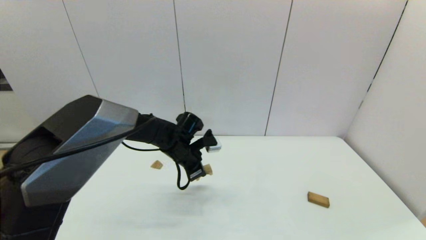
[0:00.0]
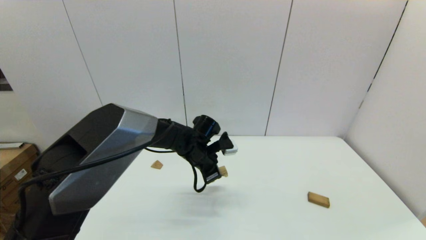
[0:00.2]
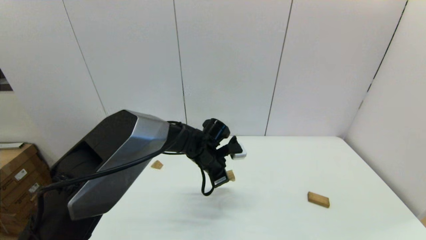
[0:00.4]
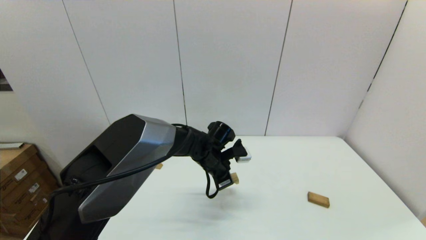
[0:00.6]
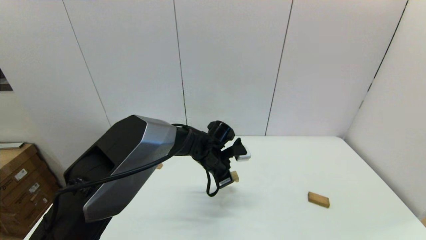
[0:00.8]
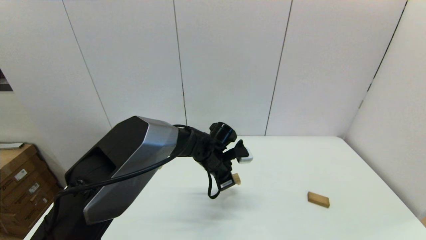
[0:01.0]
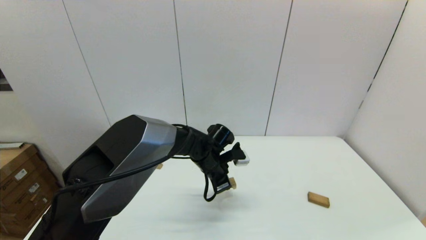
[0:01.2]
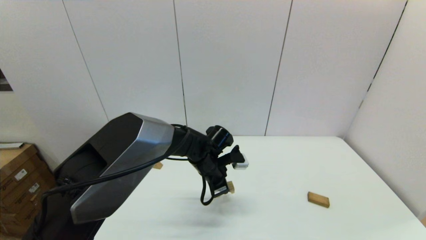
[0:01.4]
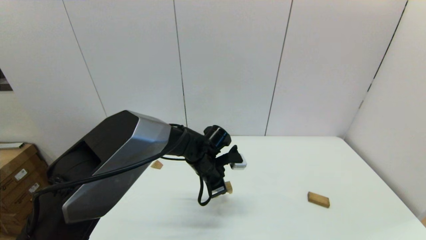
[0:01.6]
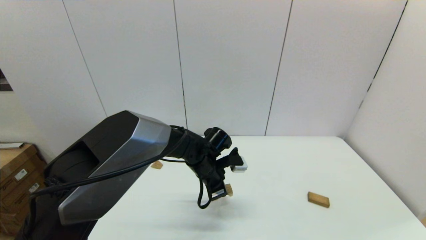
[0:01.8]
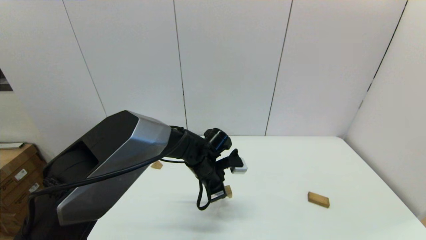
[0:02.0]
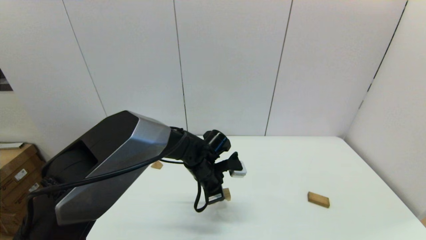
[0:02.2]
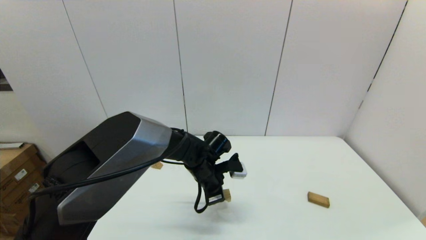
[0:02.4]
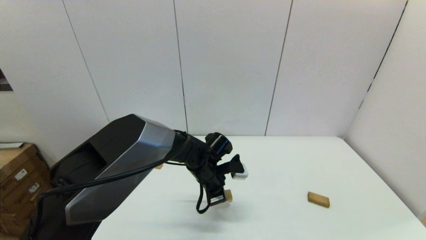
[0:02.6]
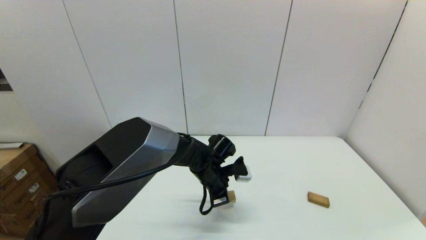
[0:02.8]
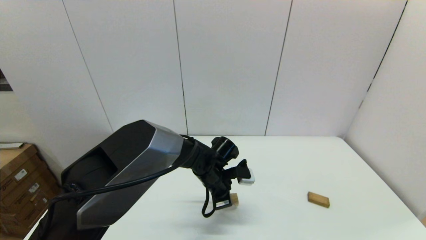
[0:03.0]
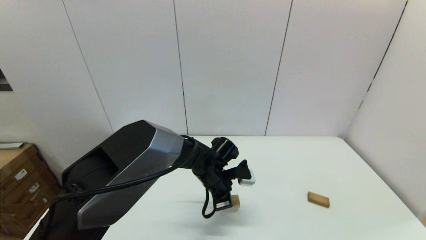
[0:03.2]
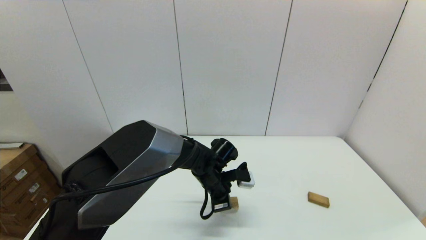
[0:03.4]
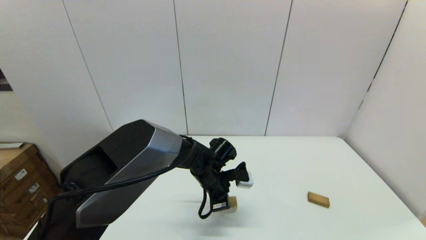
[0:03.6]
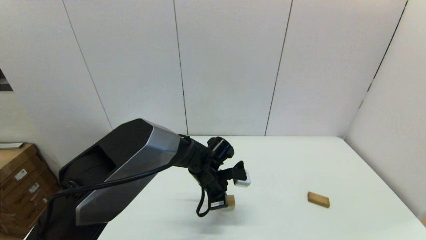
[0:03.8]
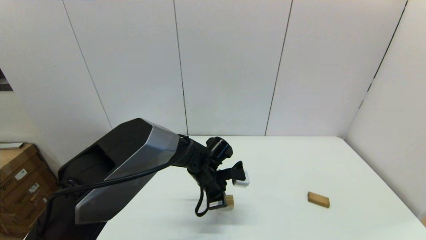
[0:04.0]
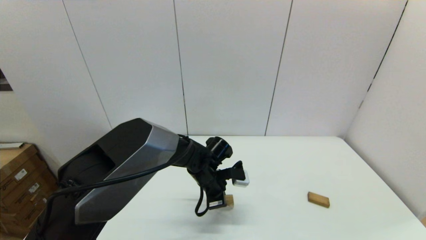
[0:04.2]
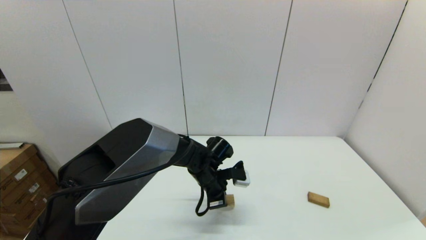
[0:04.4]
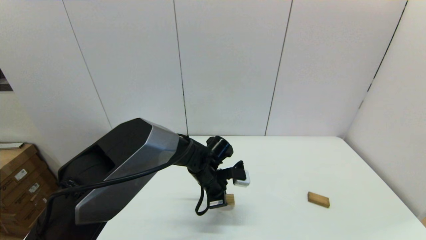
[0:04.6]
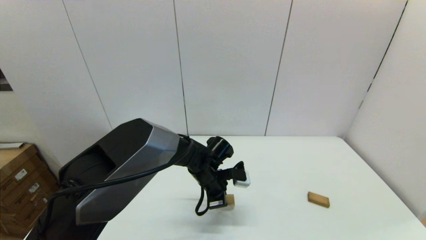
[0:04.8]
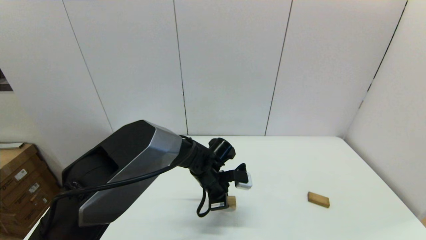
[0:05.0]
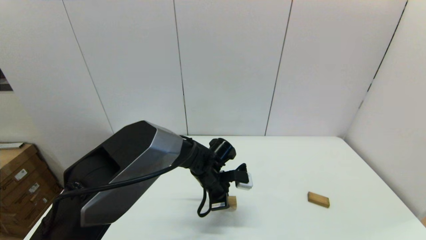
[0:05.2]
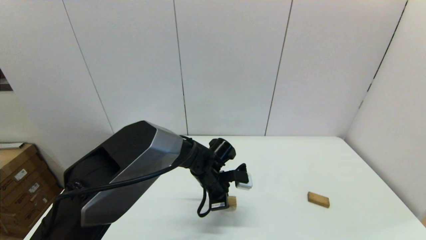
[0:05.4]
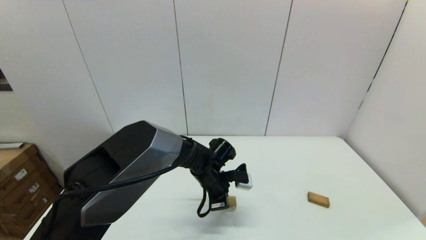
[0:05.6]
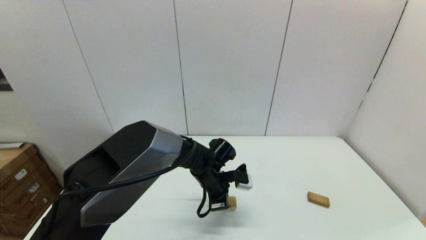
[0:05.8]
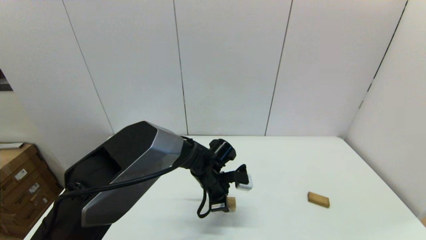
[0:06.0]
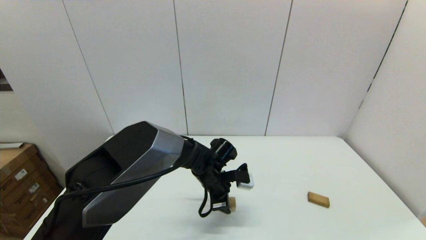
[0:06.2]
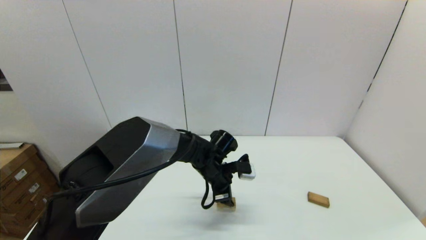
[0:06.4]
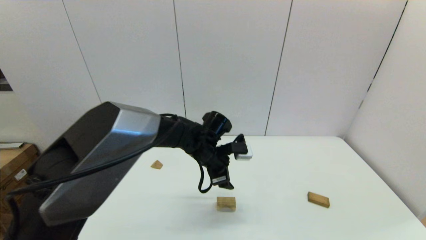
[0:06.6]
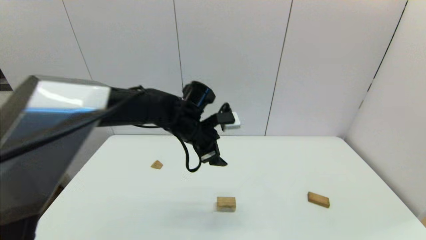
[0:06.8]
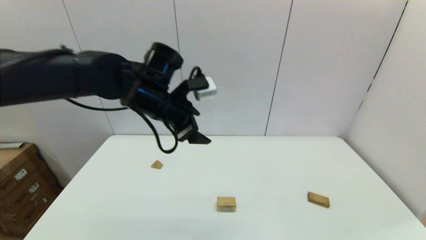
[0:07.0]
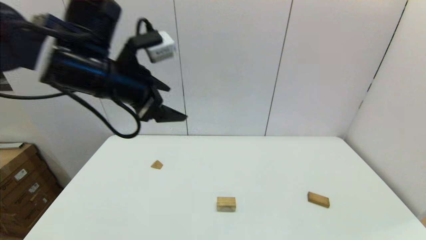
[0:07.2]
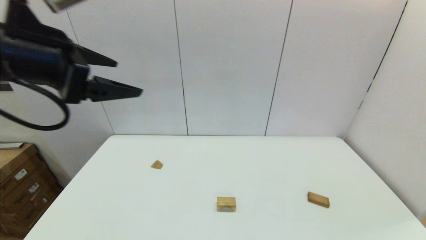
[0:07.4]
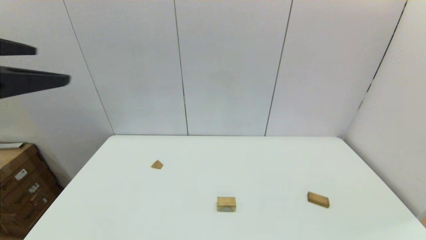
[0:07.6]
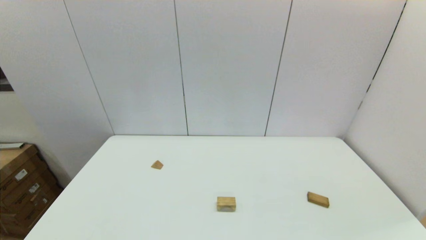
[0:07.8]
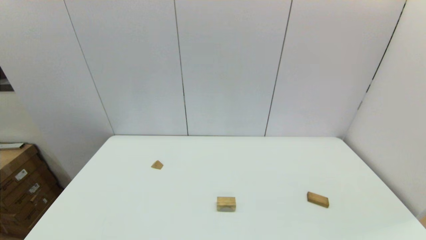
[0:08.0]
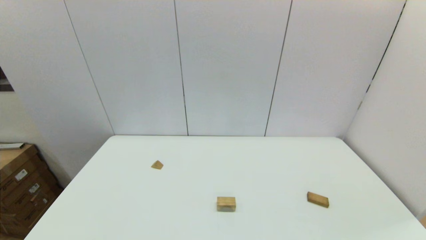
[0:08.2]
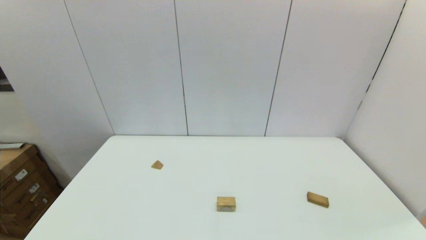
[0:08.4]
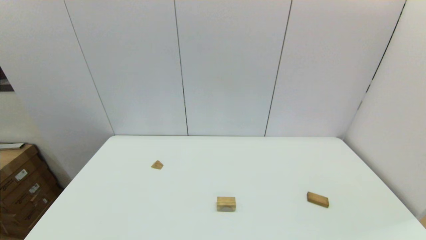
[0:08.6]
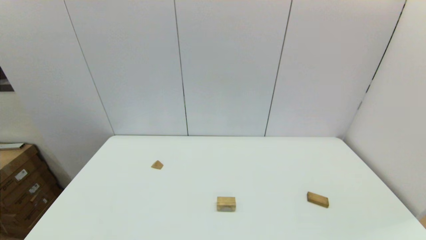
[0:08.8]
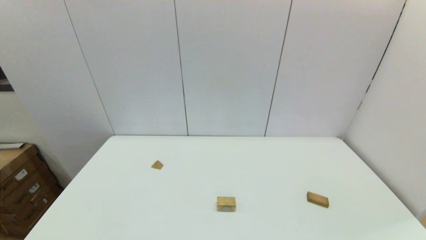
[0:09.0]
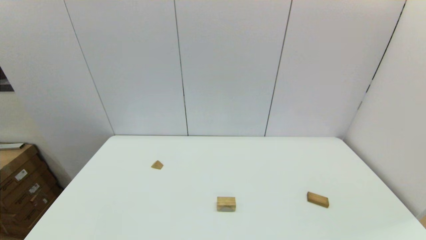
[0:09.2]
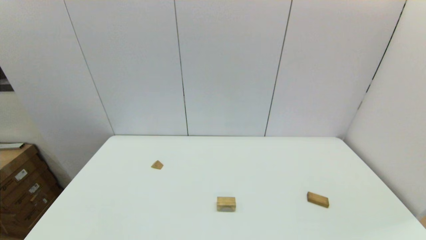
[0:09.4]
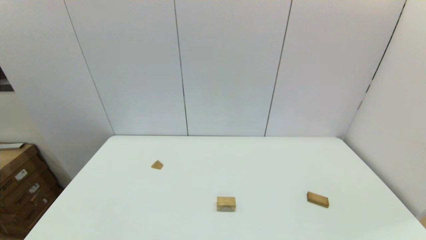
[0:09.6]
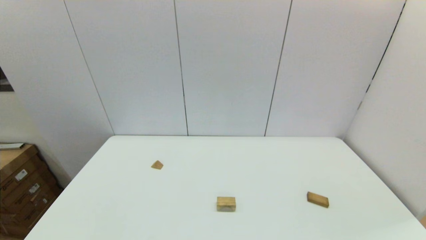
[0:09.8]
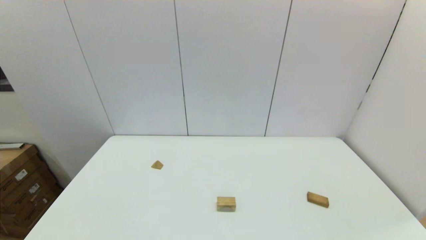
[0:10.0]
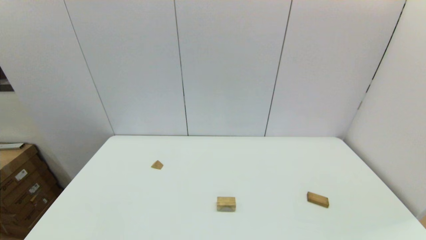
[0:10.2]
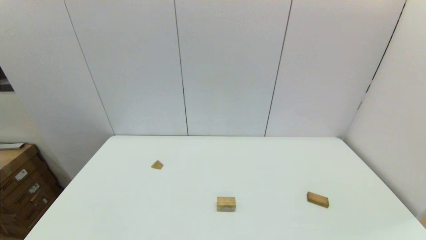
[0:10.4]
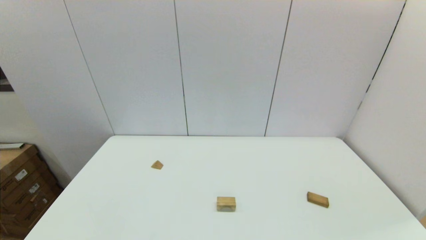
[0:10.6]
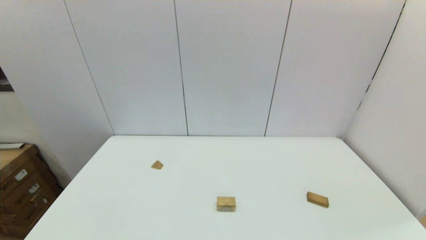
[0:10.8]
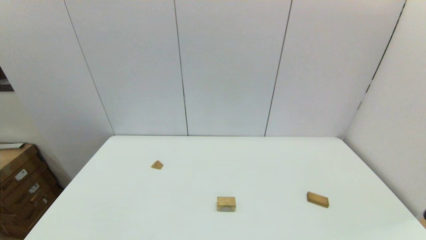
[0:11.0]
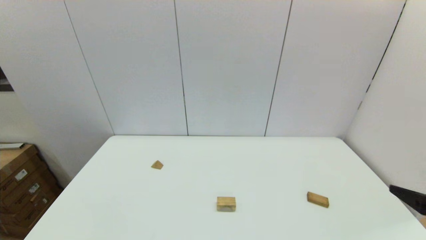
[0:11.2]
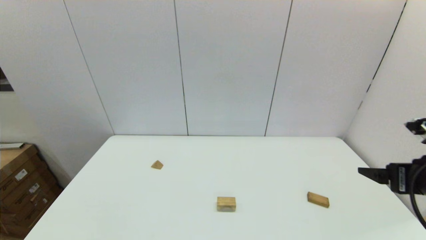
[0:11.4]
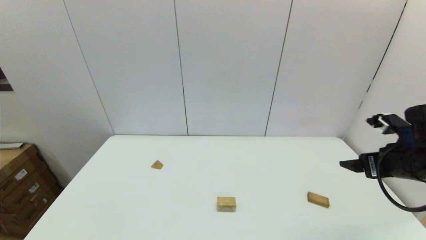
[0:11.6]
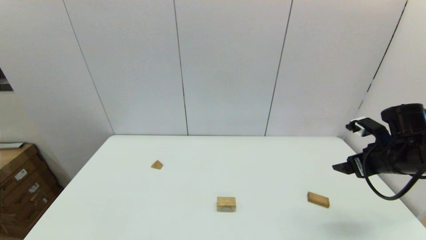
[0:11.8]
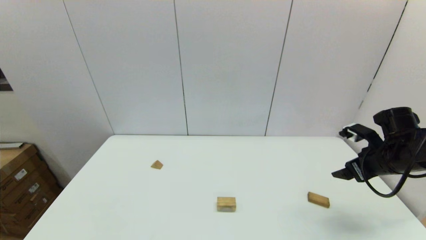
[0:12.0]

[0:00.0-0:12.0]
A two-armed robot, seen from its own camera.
Task of the whole recording: place the arched building blocks in the center of the table, set up the rectangular building blocks, and then set up the triangular building blocks.
Step, 0:00.0 to 0:06.0: Place the arch-shaped block in the center of view with the left gripper.
0:00.0 to 0:01.6: The left gripper heads to the right, covering roughly 5 cm.
0:01.6 to 0:04.4: The grippers make only small movements.
0:04.4 to 0:06.0: The left gripper opens its fingers.
0:06.0 to 0:07.6: The left gripper moves upward, to the left and backward, some 50 cm, and opens its fingers.
0:07.6 to 0:09.0: The left gripper goes approximately 30 cm downward and backward.
0:10.4 to 0:12.0: The right gripper shifts roughly 30 cm forward.

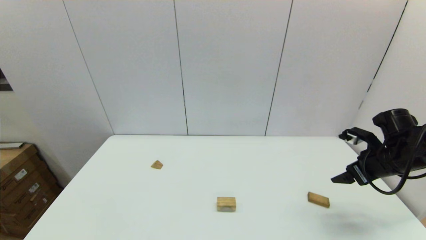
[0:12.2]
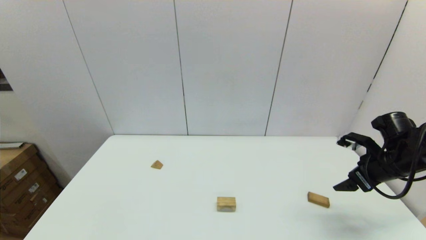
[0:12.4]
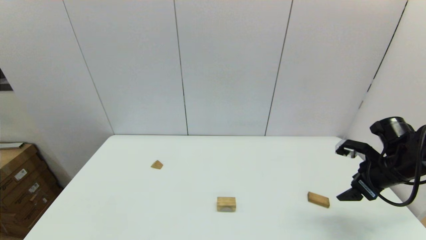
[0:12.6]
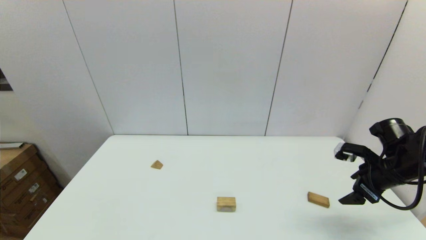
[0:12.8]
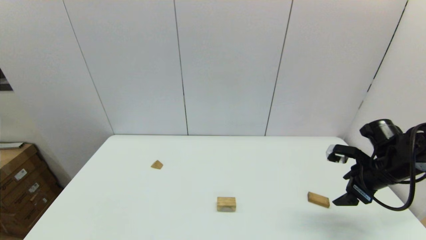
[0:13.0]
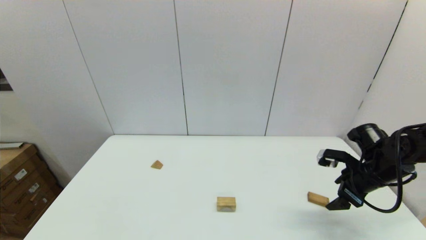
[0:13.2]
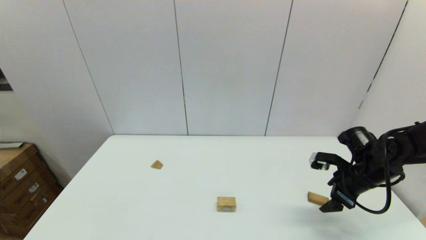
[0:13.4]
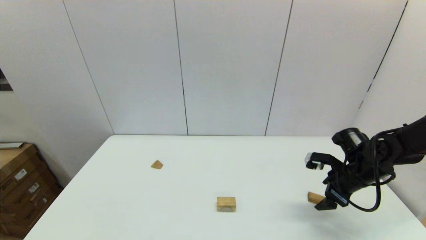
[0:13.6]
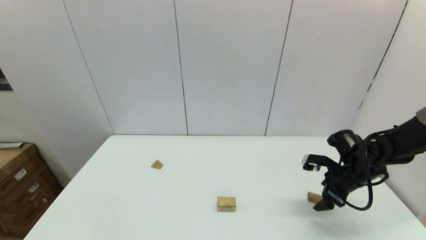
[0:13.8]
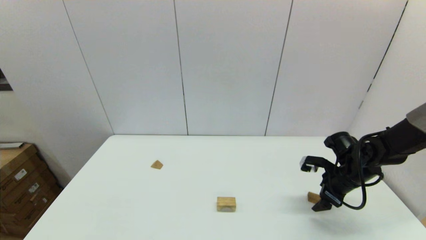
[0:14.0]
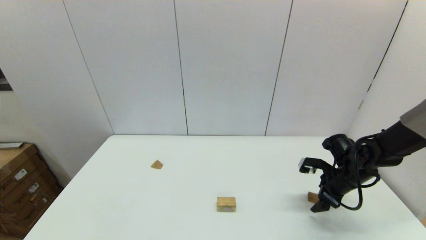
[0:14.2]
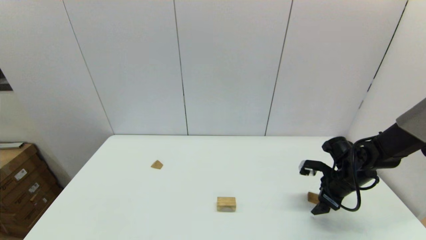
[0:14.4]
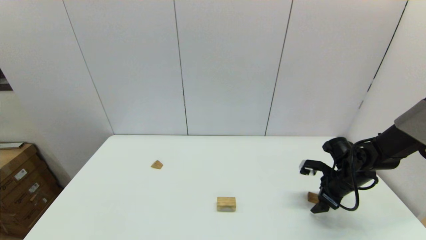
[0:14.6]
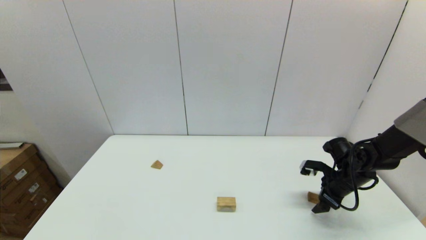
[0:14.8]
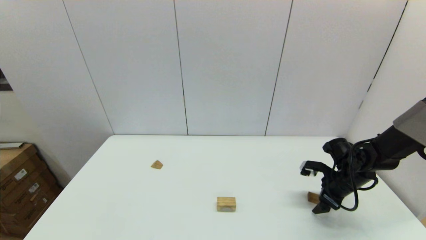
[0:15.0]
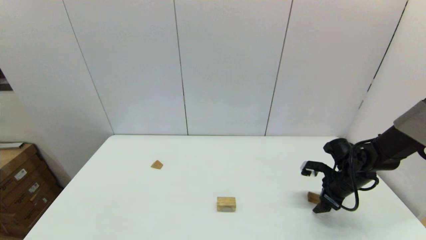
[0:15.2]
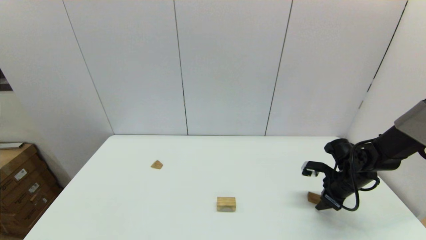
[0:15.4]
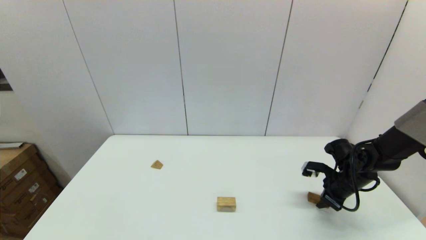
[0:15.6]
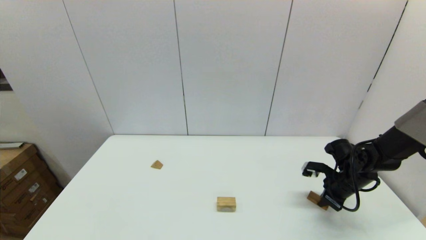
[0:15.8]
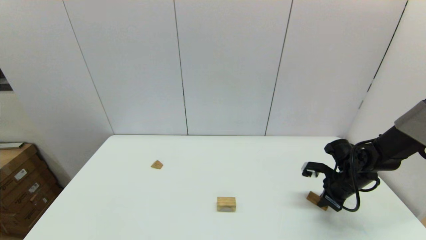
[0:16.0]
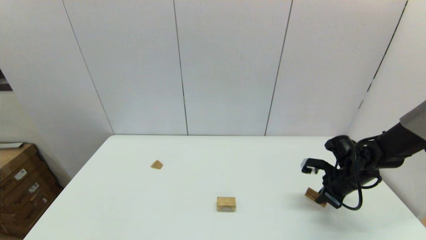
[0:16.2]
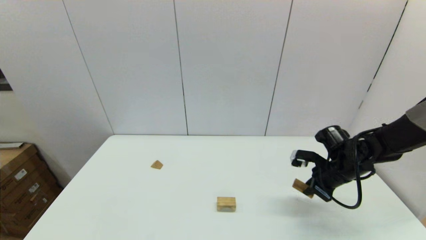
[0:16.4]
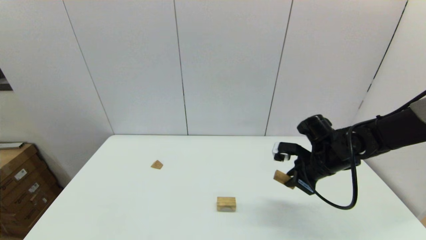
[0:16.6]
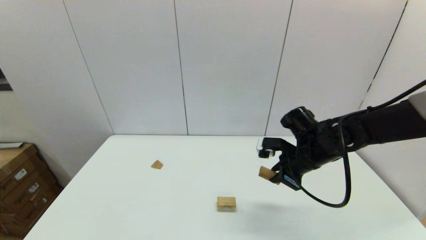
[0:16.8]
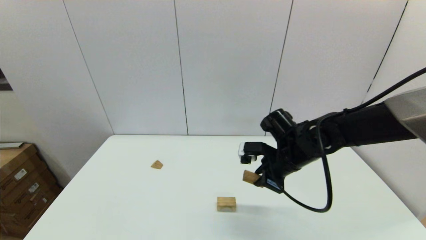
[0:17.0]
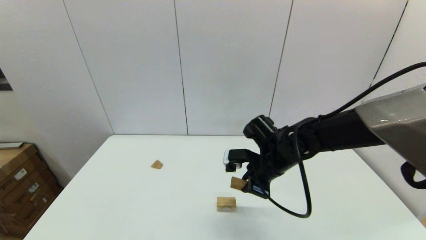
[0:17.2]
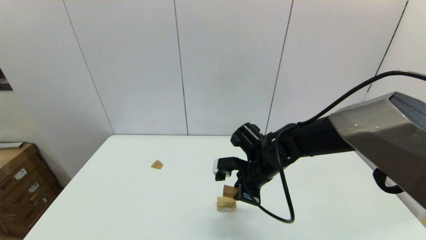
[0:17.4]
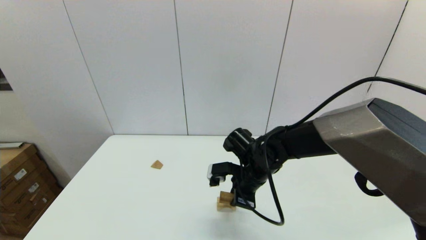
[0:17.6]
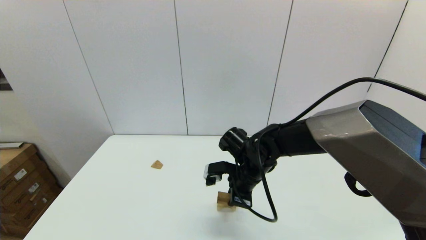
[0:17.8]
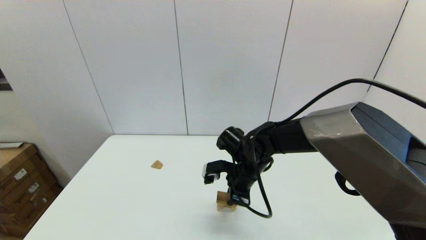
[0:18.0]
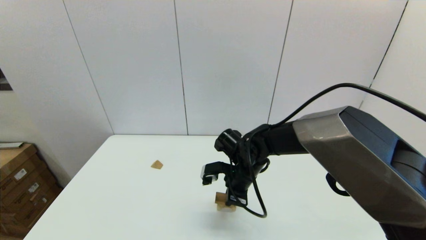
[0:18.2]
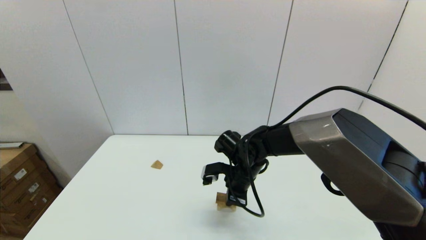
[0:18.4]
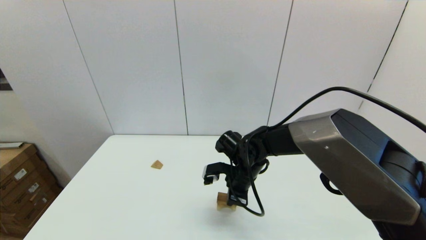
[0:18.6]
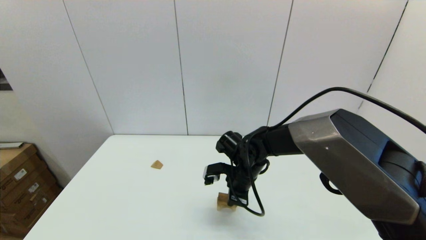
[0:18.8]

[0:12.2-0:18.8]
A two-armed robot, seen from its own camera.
Task of the whole recording: place the arched building blocks in the center of the table, set up the rectangular building blocks, and then set up the triangular building blocks.
Step, 0:12.2 to 0:15.6: Grasp the box-shaped block with the right gripper.
0:12.2 to 0:13.8: The right gripper travels downward by roughly 5 cm.
0:13.8 to 0:15.4: The right gripper closes.
0:15.4 to 0:17.2: The right gripper heads to the left, covering some 25 cm, and closes its fingers.
0:17.2 to 0:18.8: The right gripper changes place by roughly 5 cm.
